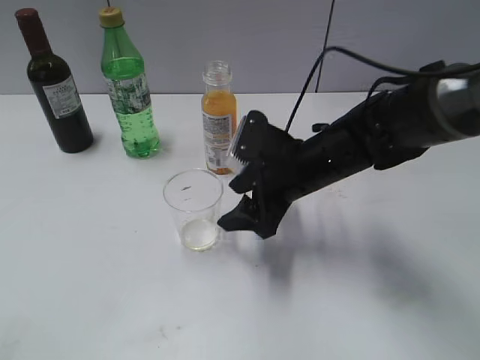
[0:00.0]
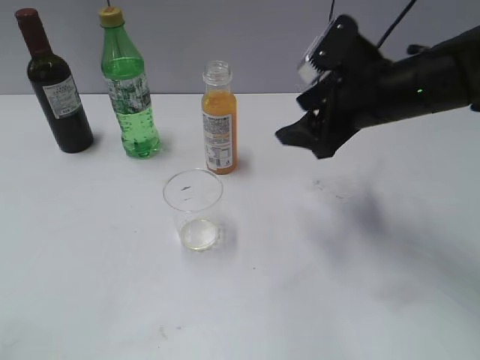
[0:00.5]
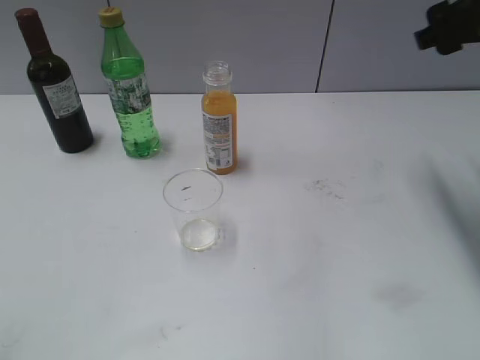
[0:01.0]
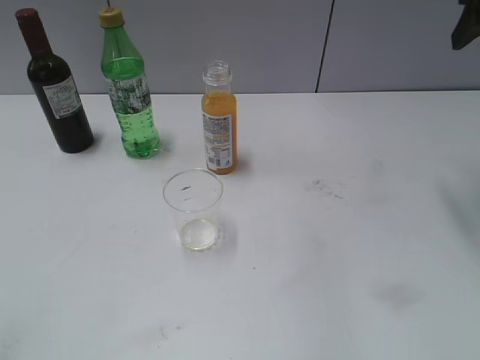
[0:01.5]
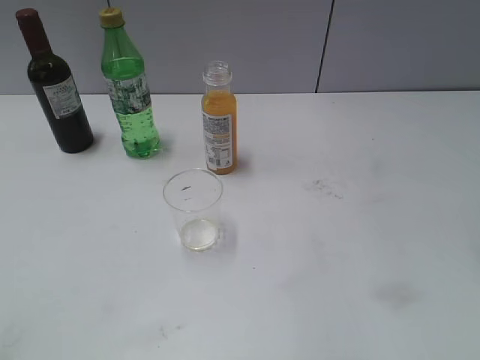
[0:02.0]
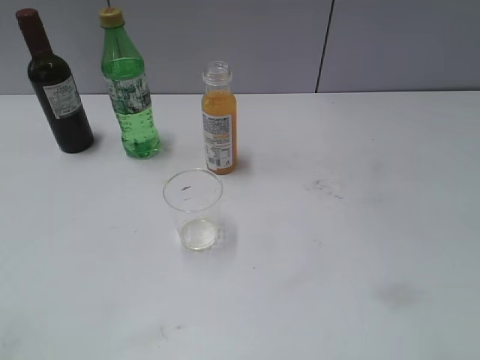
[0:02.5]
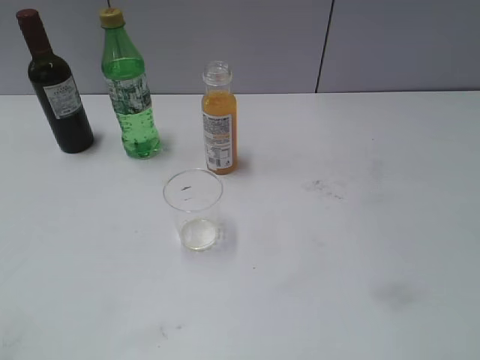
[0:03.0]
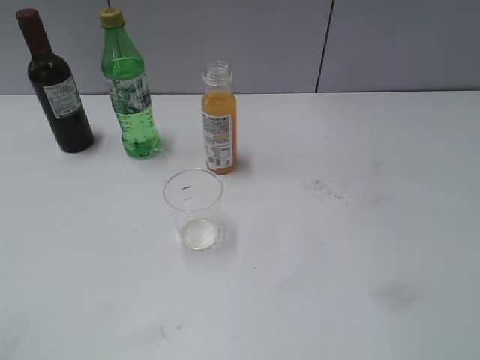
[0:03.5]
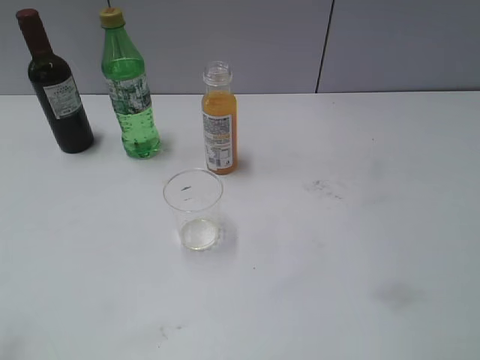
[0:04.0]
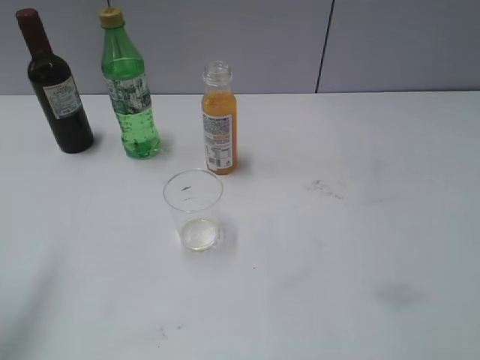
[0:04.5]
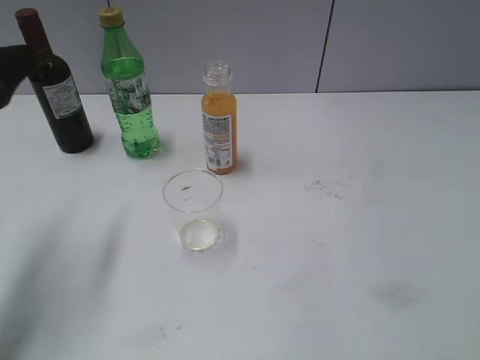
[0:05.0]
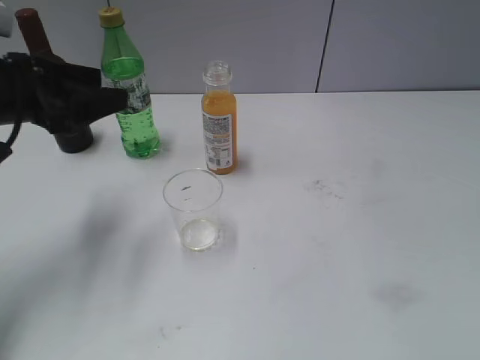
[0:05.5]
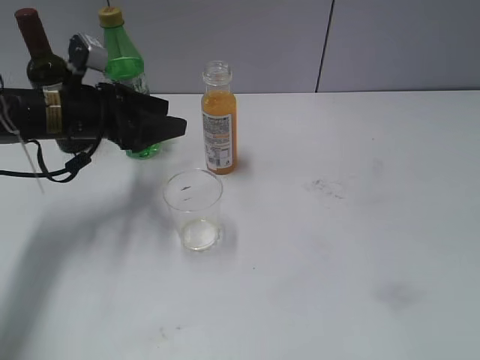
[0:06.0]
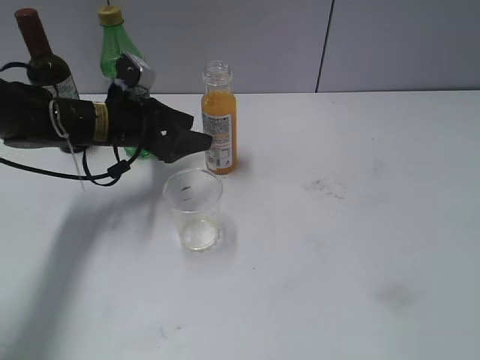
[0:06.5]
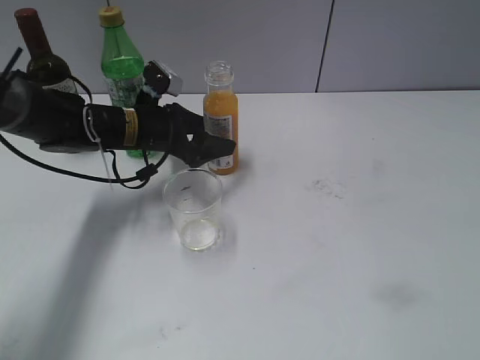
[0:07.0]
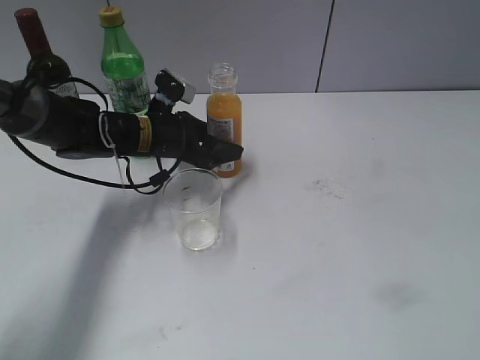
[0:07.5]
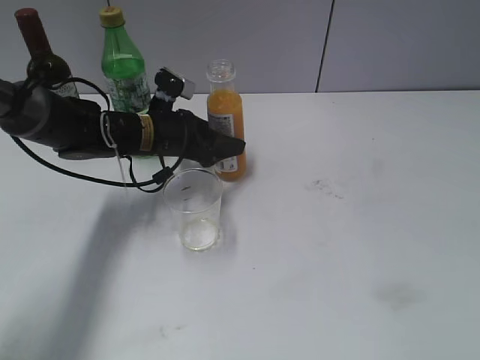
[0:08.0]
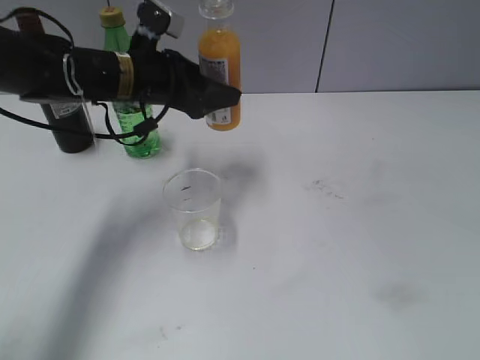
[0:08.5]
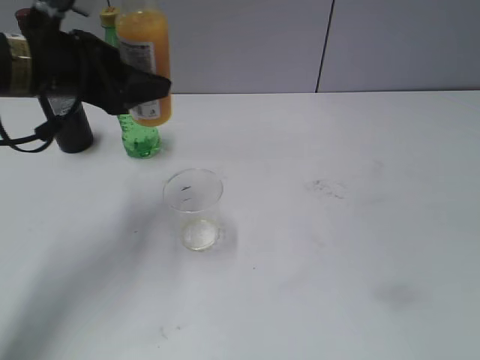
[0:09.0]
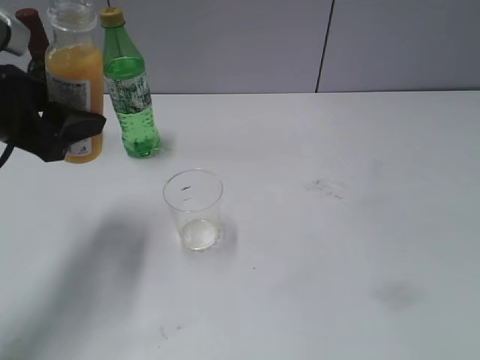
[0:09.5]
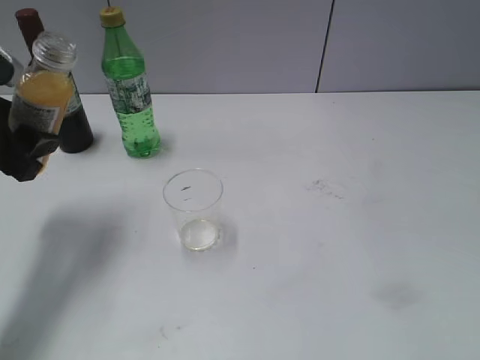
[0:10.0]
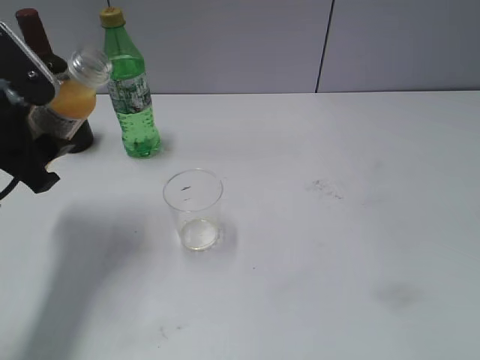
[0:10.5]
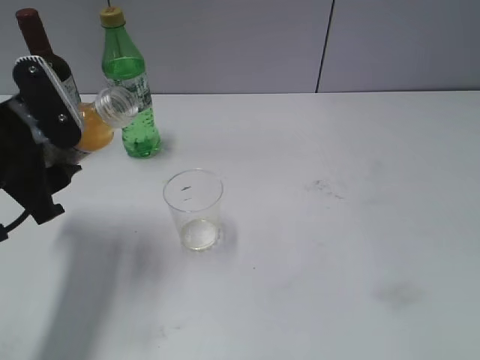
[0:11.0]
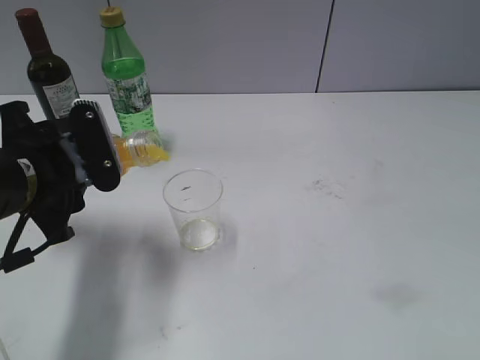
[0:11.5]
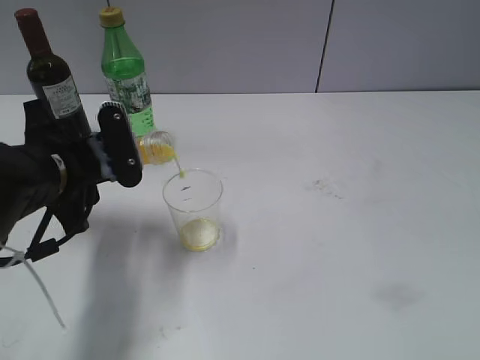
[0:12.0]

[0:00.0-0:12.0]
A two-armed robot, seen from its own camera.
Step, 0:00.5 to 0:07.5: Grasp the bottle with orange juice with left gripper.
0:00.0 to 0:02.0: The right gripper is displaced upward and to the right by approximately 30 cm.
0:04.0 to 0:06.0: The left gripper heads forward and downward, covering roughly 35 cm.
0:06.0 to 0:08.0: The left gripper travels to the right and downward by approximately 10 cm, and closes up.
0:08.0 to 0:10.0: The left gripper is displaced to the left, backward and upward by some 25 cm.
0:10.0 to 0:12.0: The left gripper travels to the right and downward by roughly 10 cm.

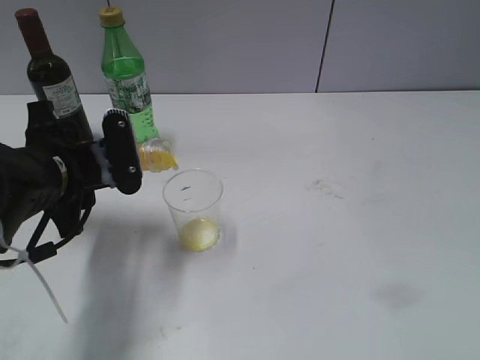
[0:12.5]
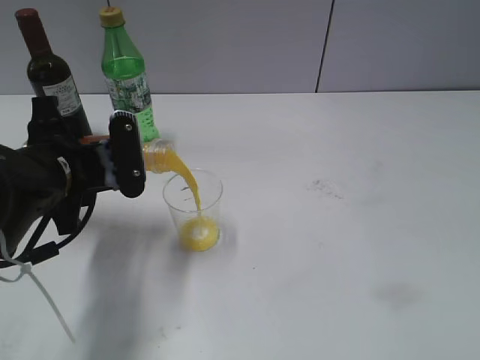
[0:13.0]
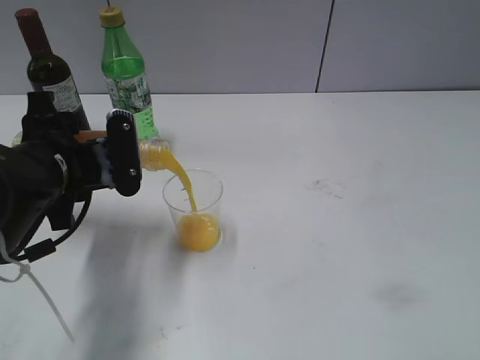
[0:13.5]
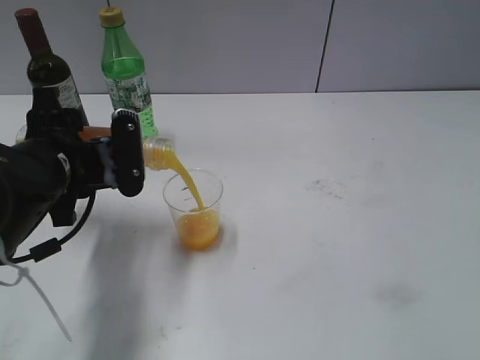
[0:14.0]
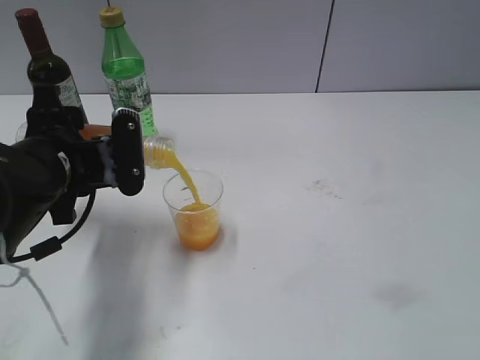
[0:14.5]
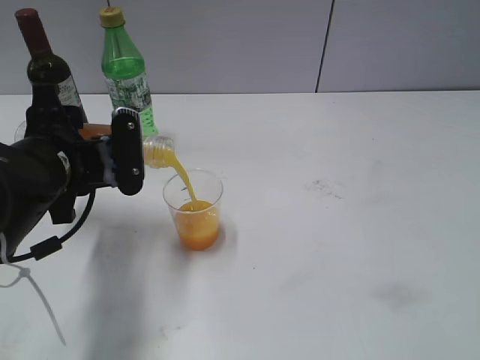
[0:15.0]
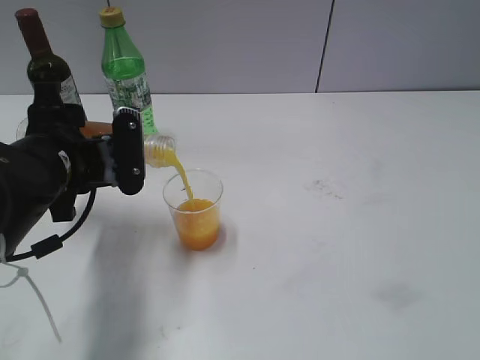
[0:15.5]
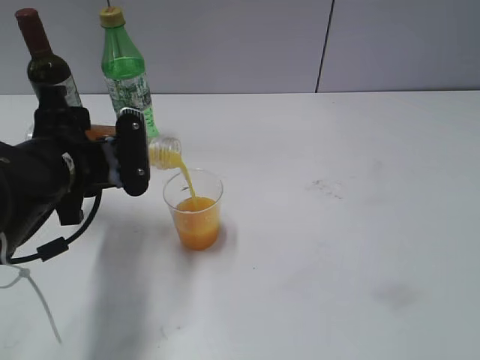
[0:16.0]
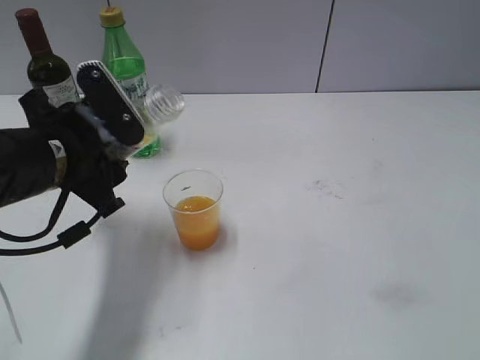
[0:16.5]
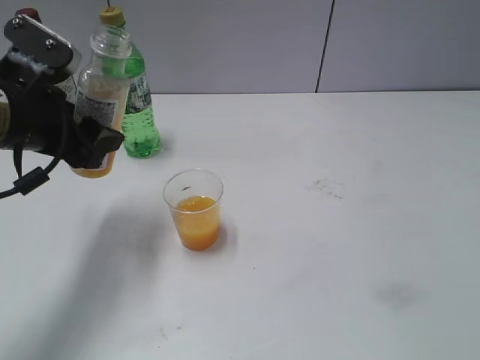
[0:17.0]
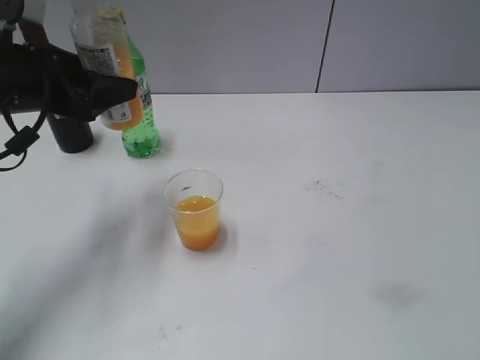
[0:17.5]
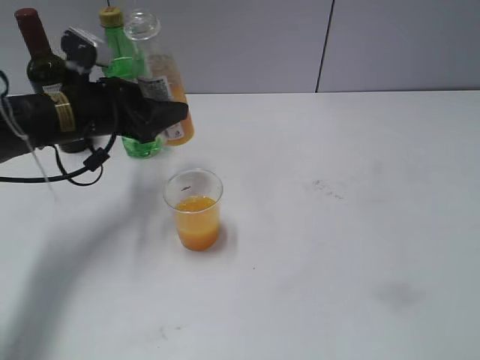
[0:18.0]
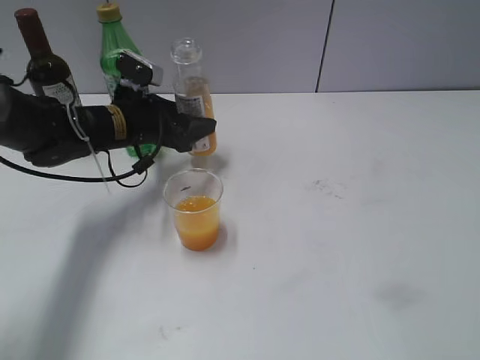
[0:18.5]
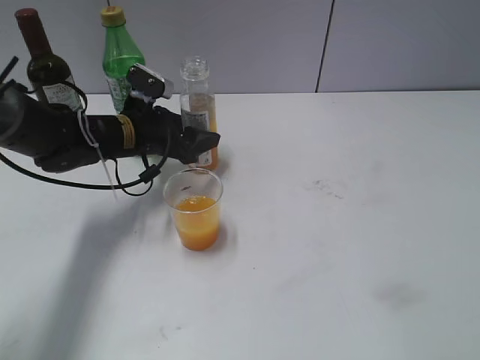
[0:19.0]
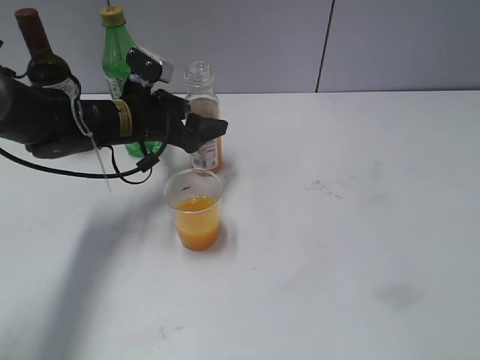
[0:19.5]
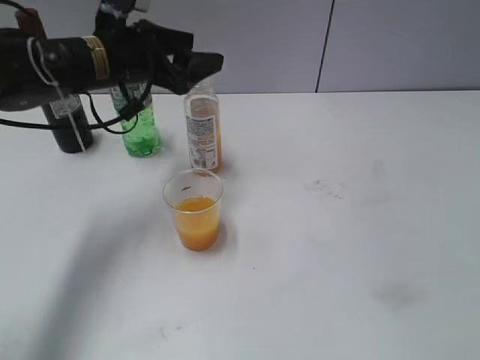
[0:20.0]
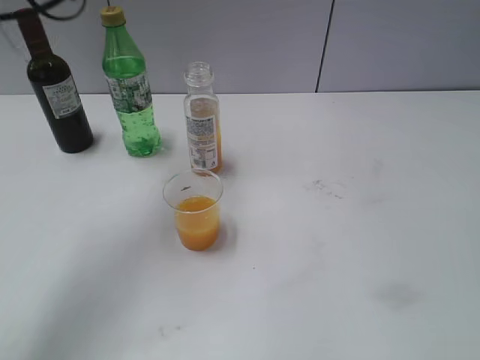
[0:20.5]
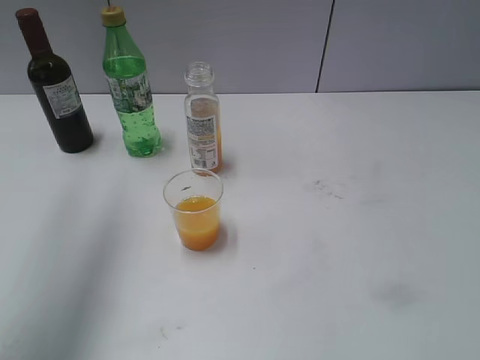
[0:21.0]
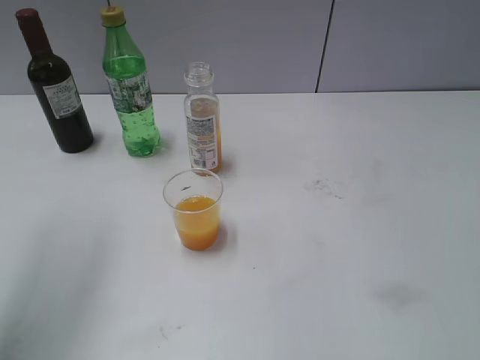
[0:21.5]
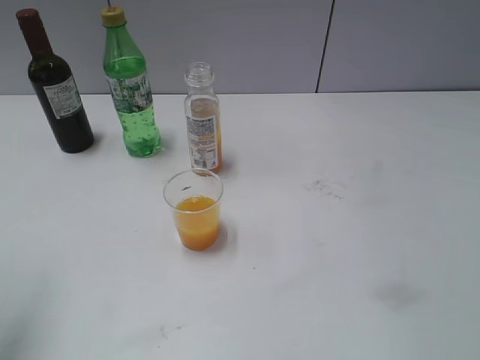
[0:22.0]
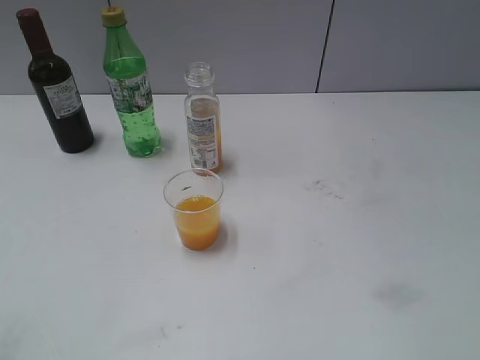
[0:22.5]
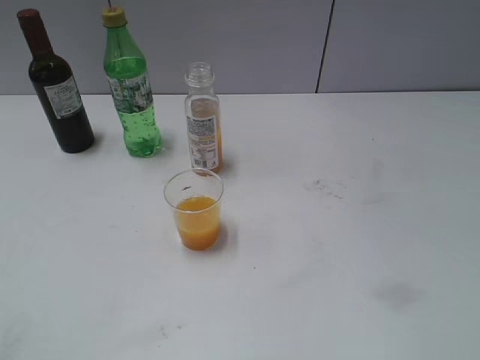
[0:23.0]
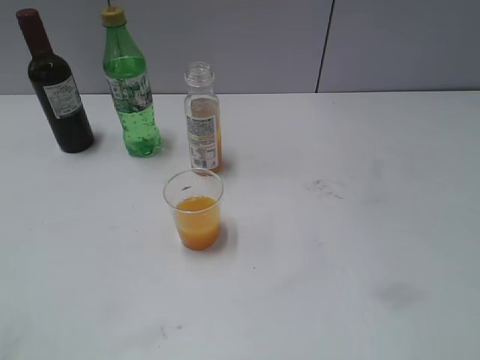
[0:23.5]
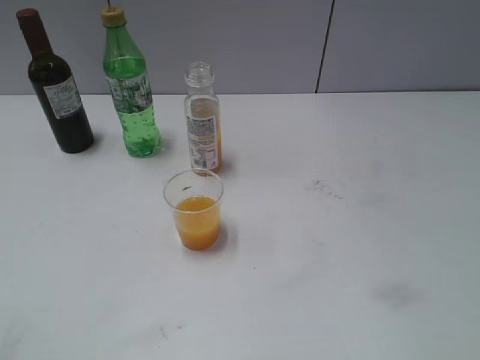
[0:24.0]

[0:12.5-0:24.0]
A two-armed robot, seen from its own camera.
Step, 0:12.5 to 0:16.5: Pour the orange juice from bottle to cup with left gripper.
Step, 0:17.0 to 0:19.0: Place the orange juice bottle on the table with left gripper.
0:12.5 to 0:14.5: The grippers stay close to where they were, moving slightly.
0:16.5 to 0:18.5: The left gripper travels forward and downward by roughly 15 cm.
0:18.5 to 0:20.0: The left gripper shifts some 10 cm upward, and opens.
0:20.0 to 0:22.0: The left gripper is displaced backward, to the left and upward by approximately 35 cm.

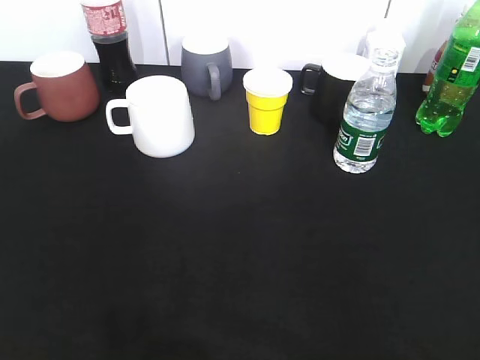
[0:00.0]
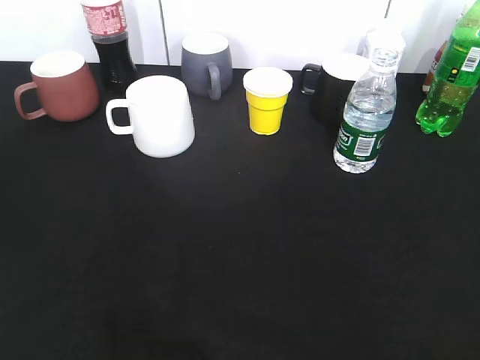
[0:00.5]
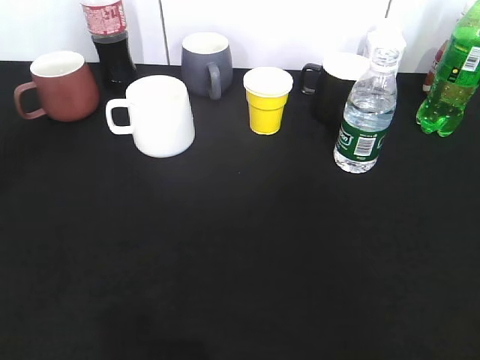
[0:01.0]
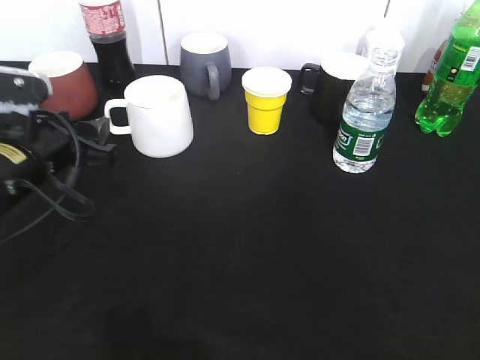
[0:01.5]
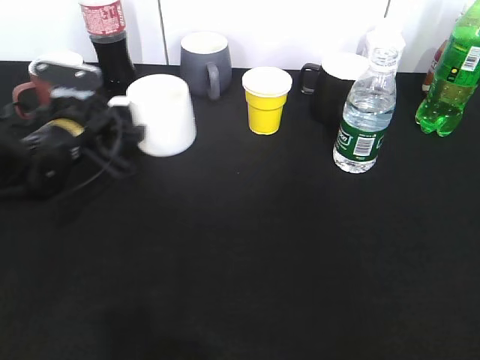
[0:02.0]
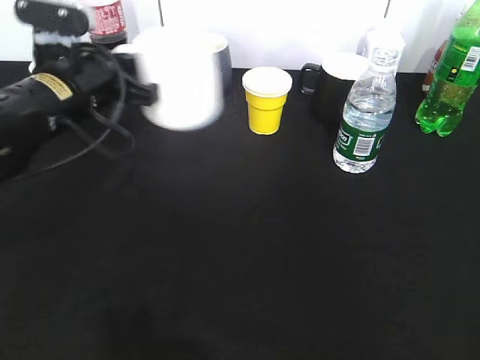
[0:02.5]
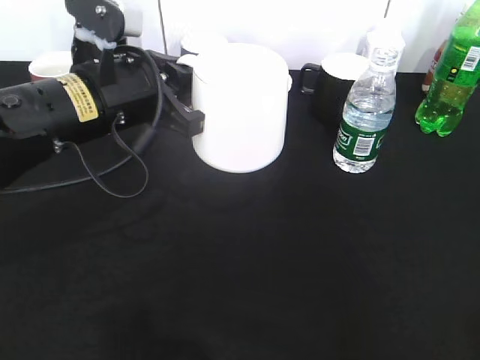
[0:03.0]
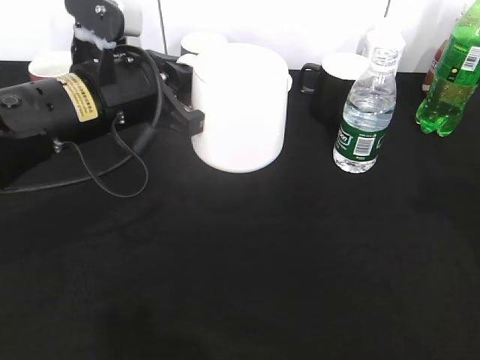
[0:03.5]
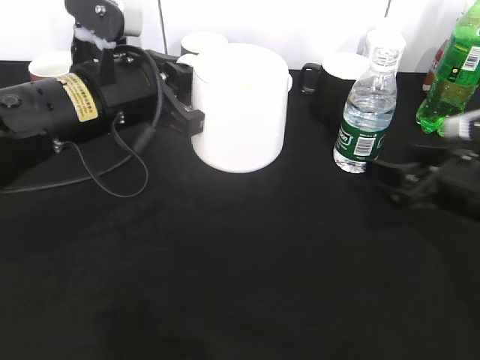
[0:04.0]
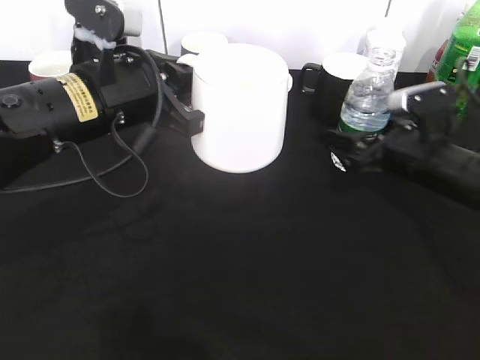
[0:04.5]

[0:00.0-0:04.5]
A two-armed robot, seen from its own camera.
Step, 0:00.0 to 0:02.0: Grasp the white cup with left gripper.
0:00.0 to 0:02.0: The left gripper moves forward and downward, roughly 40 cm.
0:02.0 to 0:04.5: The right gripper is displaced forward and downward by approximately 35 cm, and opens its fingers. Meanwhile the left gripper is displaced upward, backward and to the right by roughly 15 cm, and closes up.
